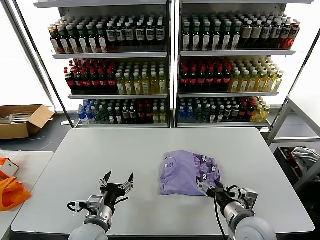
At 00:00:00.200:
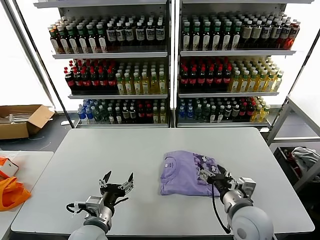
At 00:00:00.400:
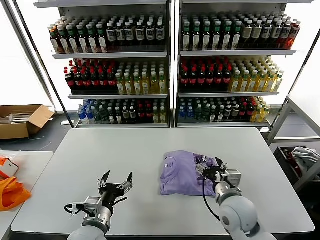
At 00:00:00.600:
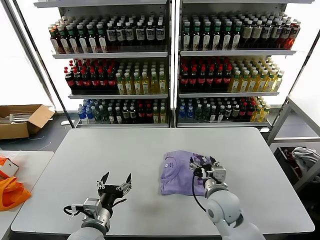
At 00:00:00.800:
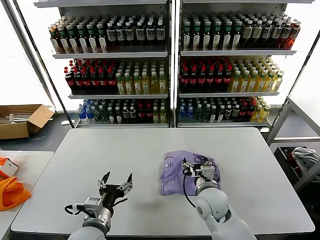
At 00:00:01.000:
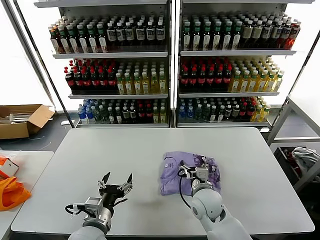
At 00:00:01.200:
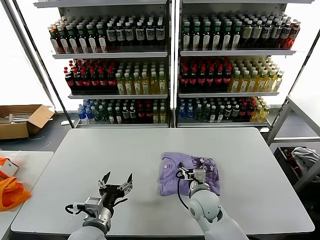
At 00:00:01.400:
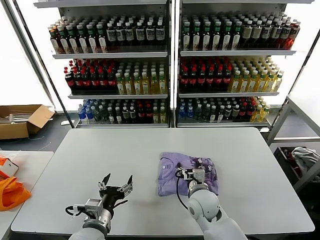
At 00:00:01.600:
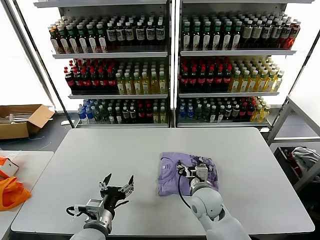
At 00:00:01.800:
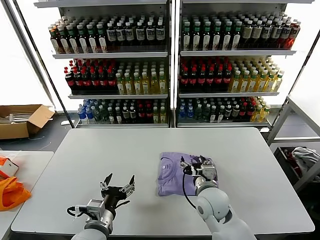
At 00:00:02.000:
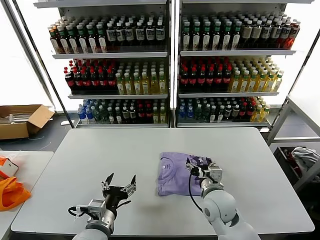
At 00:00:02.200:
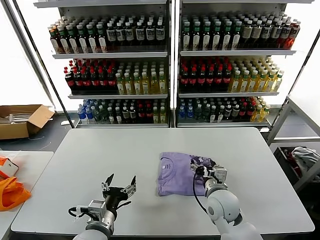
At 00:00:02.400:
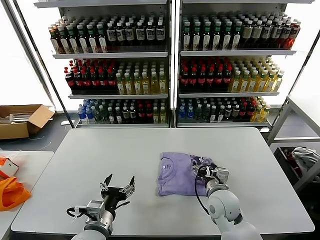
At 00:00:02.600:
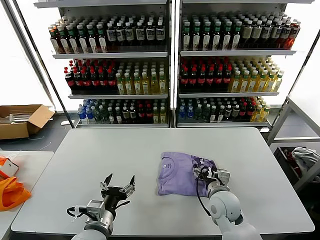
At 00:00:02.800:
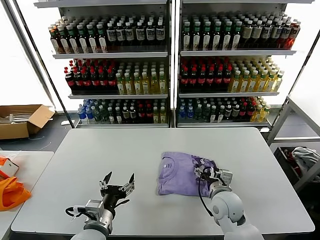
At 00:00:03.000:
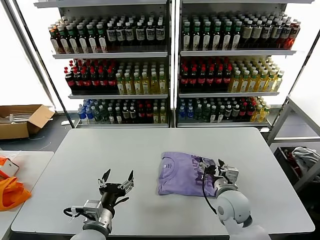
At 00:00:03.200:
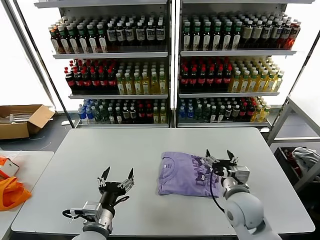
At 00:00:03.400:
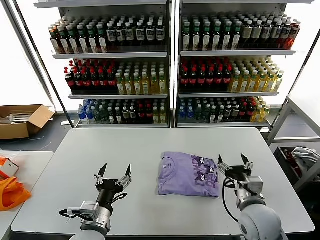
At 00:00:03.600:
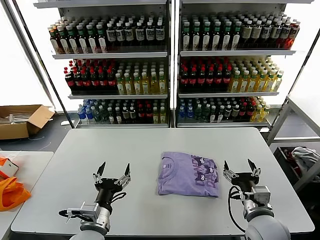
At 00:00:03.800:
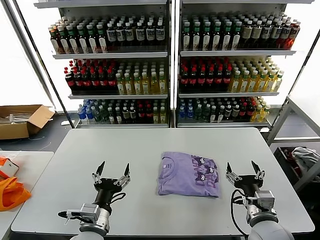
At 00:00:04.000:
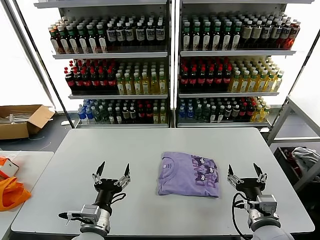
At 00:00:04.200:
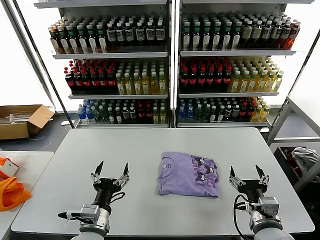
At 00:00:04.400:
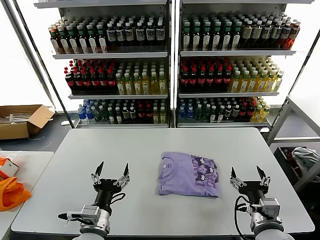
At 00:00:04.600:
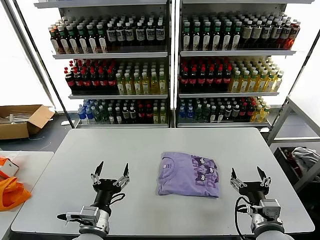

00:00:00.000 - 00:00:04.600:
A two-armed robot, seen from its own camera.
Task of the whole recording: fold and organize the clothes.
Step, 00:00:00.000 - 00:00:03.000: Drag the clothes to the center of the table.
00:00:00.000 - 00:00:01.600: The right gripper moves forward, to the left and downward, approximately 15 cm.
00:00:01.600 - 00:00:03.000: The right gripper goes about 5 cm to the right.
00:00:03.000 - 00:00:04.600: The right gripper is displaced backward and to the right by roughly 15 cm.
